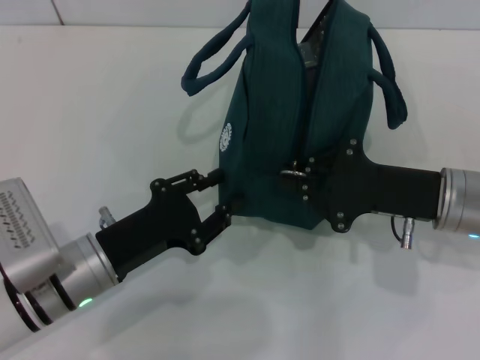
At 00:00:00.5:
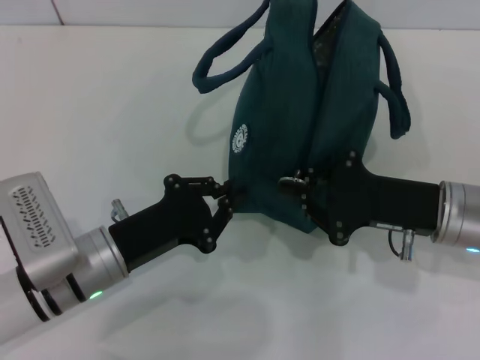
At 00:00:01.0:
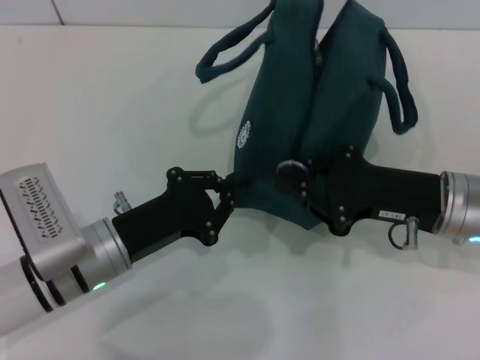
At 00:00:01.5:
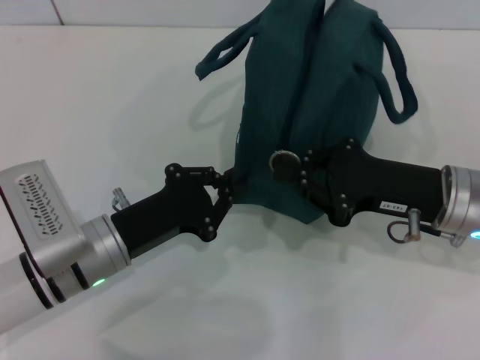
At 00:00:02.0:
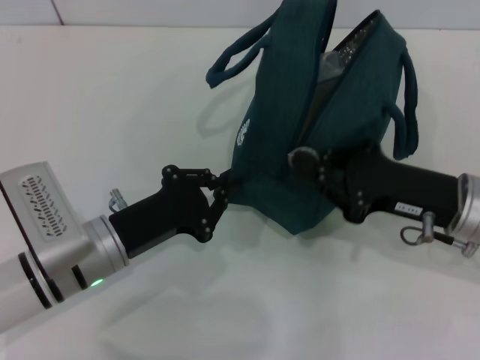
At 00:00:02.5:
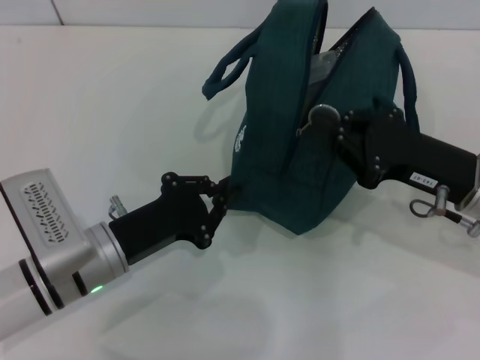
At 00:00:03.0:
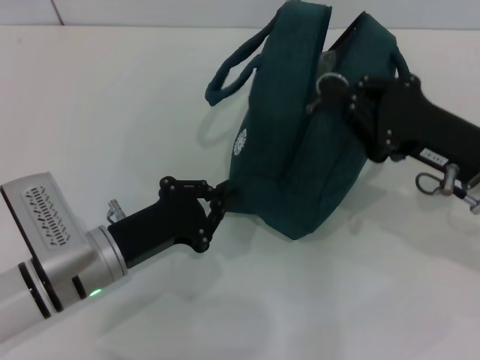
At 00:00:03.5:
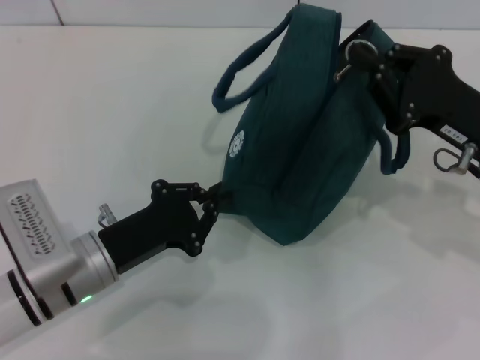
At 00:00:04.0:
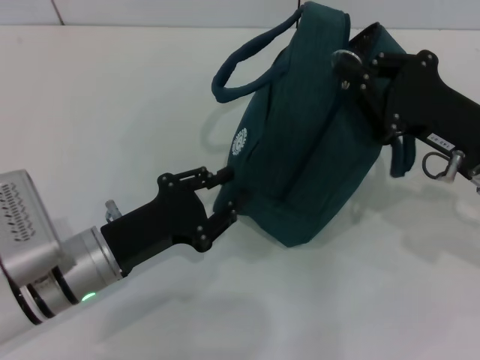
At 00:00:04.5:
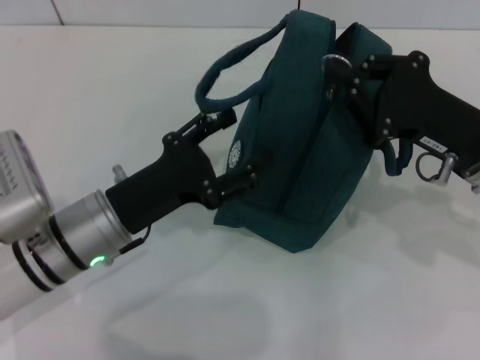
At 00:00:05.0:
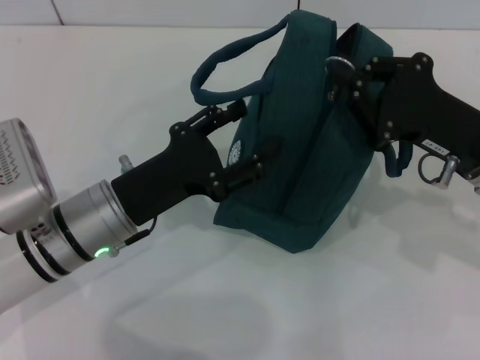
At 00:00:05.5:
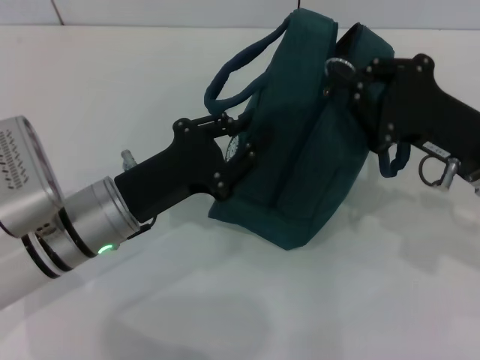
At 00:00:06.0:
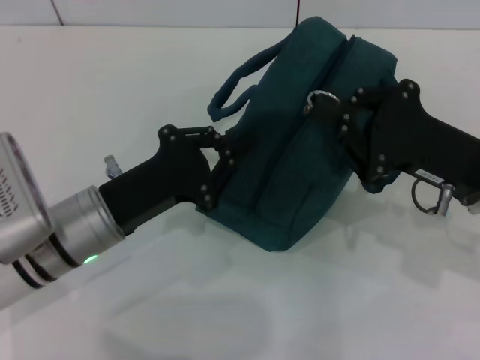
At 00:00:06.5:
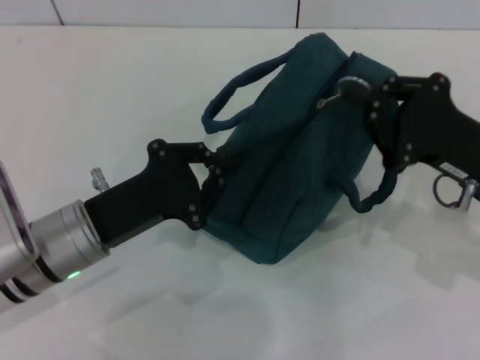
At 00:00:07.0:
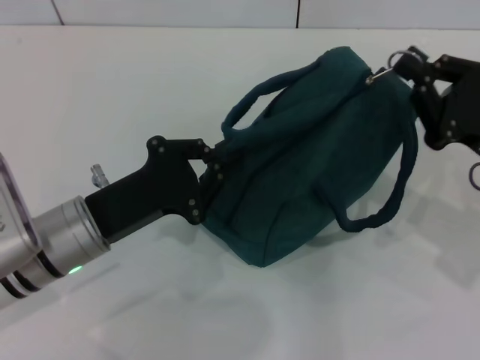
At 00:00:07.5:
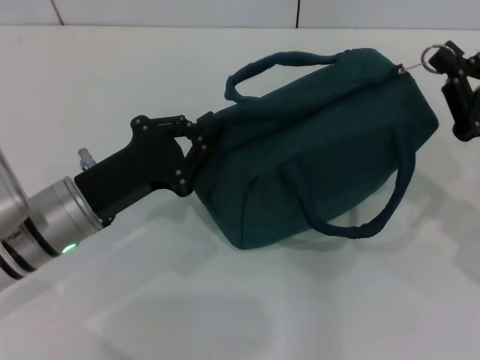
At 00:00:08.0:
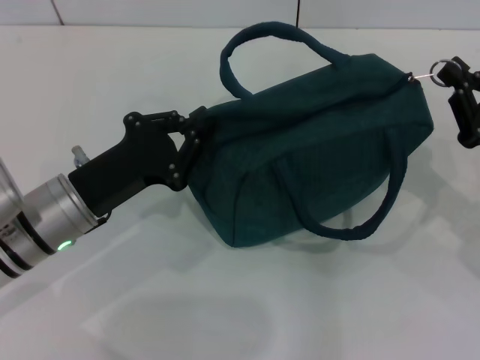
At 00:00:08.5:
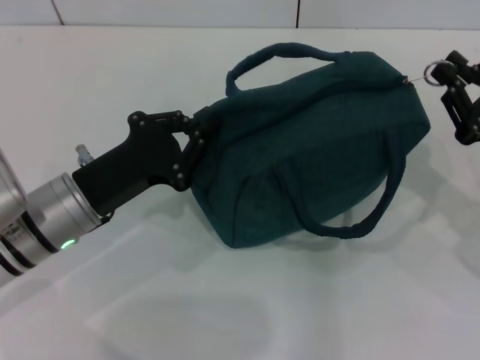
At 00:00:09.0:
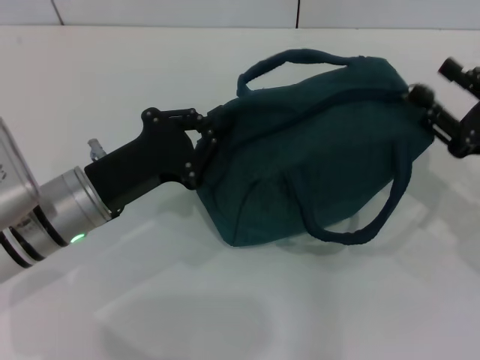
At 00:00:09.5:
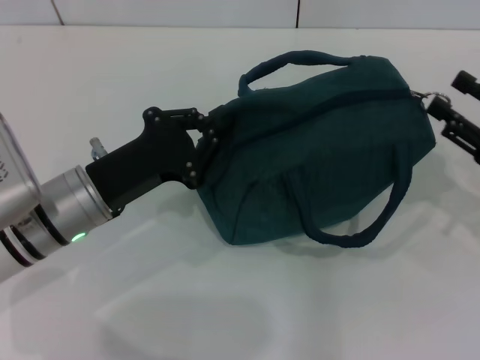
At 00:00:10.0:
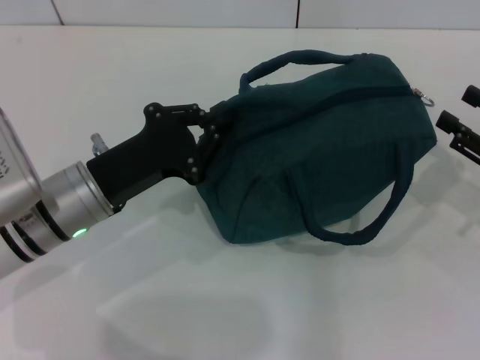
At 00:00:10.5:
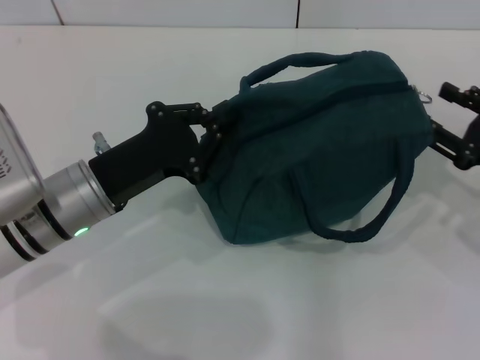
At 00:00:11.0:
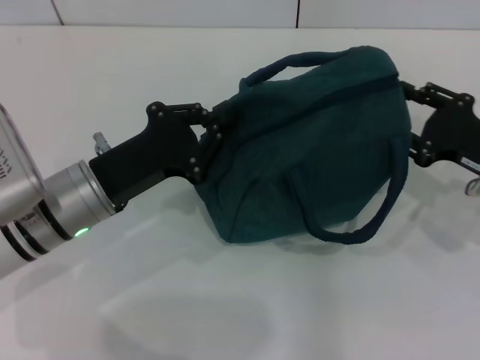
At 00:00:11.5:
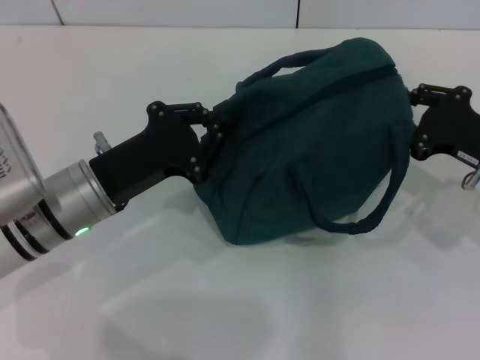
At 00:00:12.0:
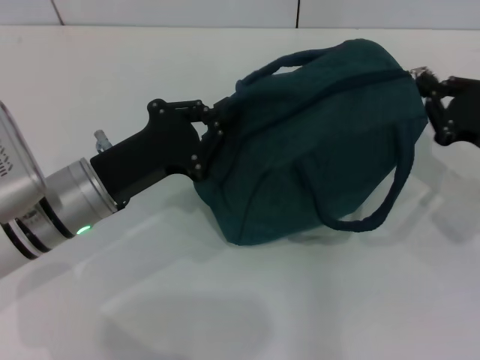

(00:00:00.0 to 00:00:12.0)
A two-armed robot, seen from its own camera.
00:00:00.0 - 00:00:02.0: The left gripper closes.
00:00:04.0 - 00:00:06.0: The left gripper opens, then closes once more.
00:00:06.0 - 00:00:08.0: The right gripper is displaced to the right by roughly 10 cm.
00:00:08.0 - 00:00:10.0: The right gripper opens.
00:00:10.0 - 00:00:12.0: The right gripper shifts by about 5 cm, and closes.

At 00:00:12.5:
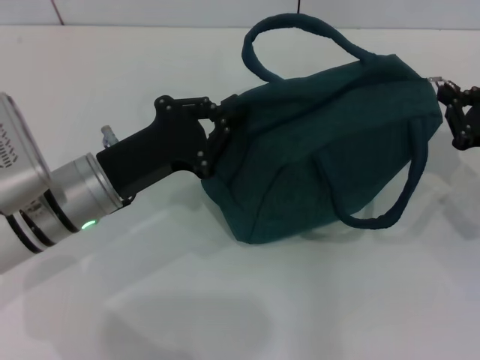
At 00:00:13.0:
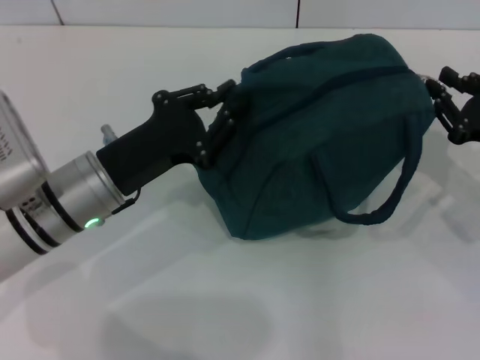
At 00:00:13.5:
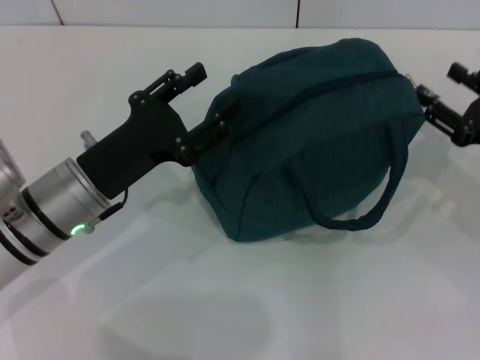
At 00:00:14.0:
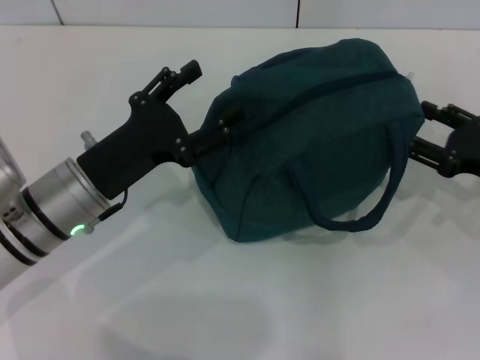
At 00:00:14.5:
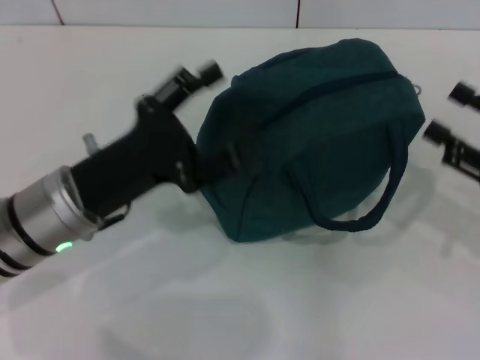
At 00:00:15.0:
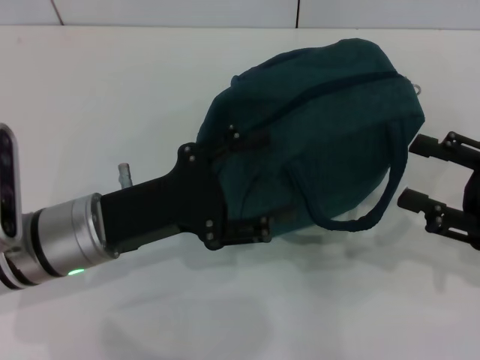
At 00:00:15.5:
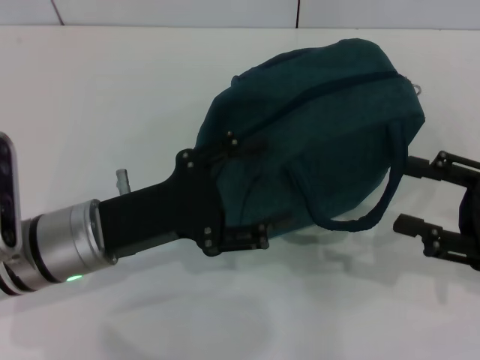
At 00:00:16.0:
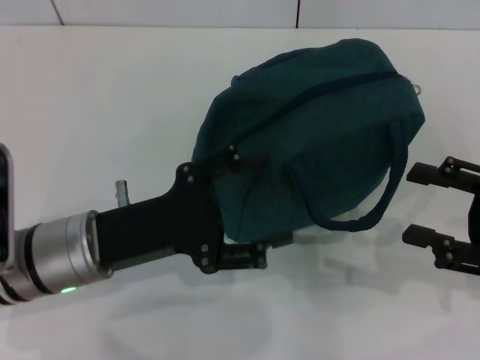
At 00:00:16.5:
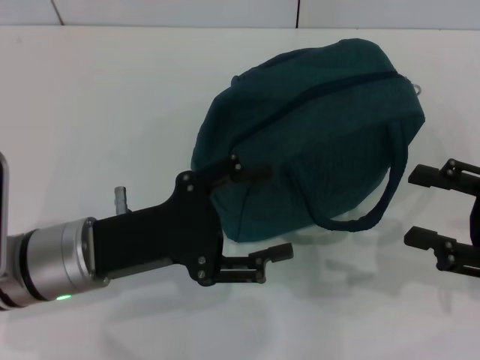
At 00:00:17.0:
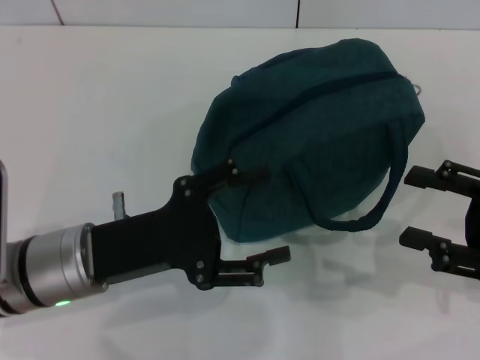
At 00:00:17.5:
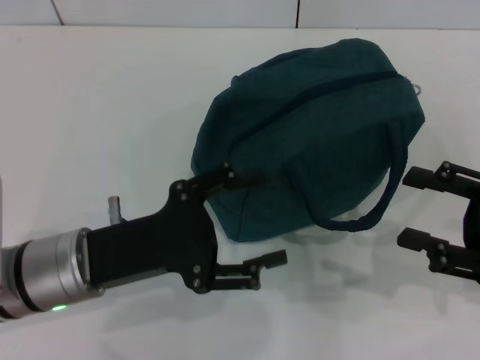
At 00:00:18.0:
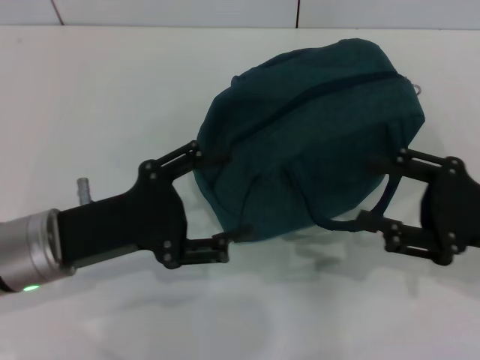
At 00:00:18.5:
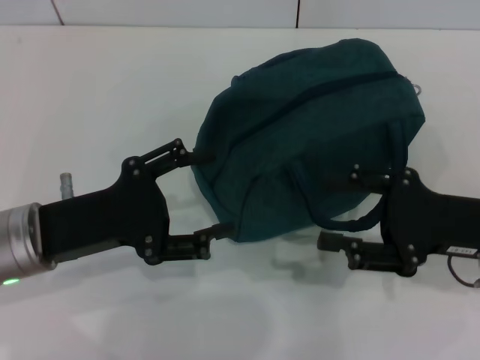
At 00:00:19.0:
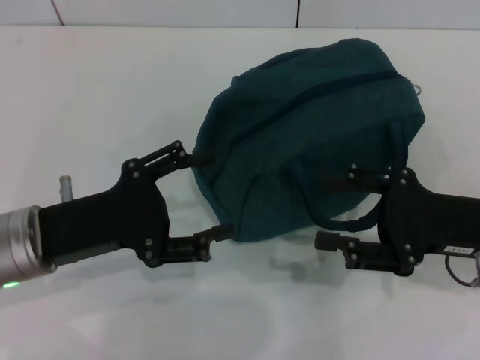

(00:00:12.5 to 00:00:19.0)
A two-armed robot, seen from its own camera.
00:00:12.5 - 00:00:14.5: The left gripper opens up, while the right gripper shifts roughly 5 cm backward, and opens.
00:00:17.0 - 00:00:19.0: The right gripper travels to the left by roughly 5 cm.
